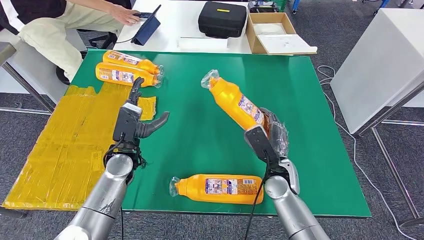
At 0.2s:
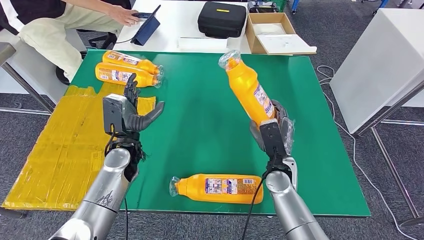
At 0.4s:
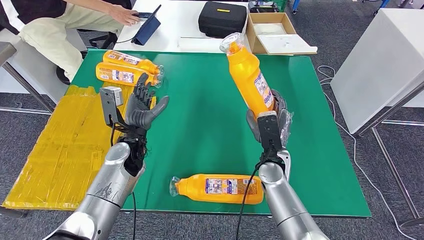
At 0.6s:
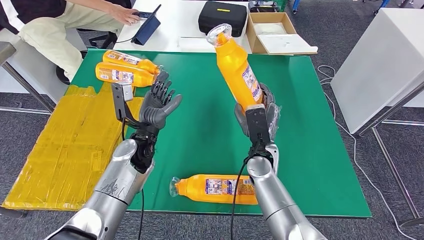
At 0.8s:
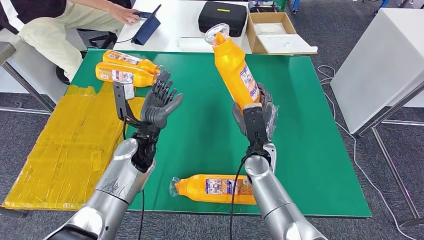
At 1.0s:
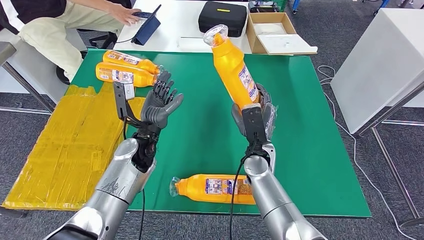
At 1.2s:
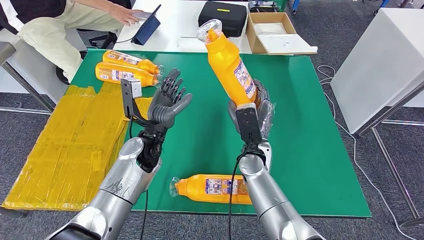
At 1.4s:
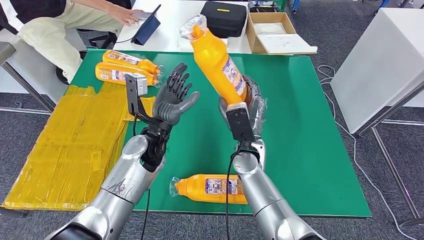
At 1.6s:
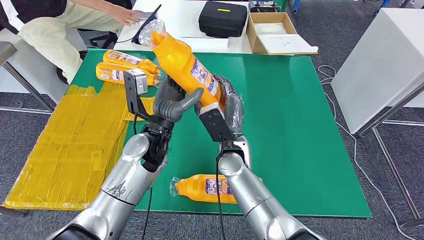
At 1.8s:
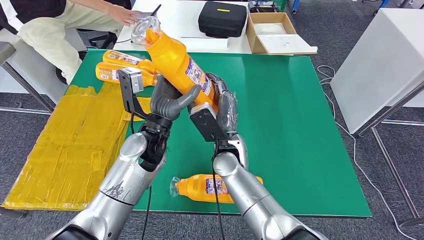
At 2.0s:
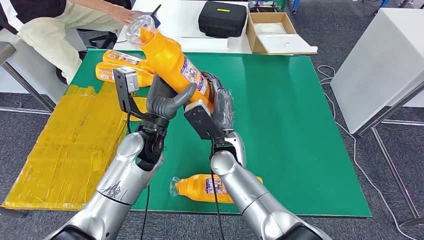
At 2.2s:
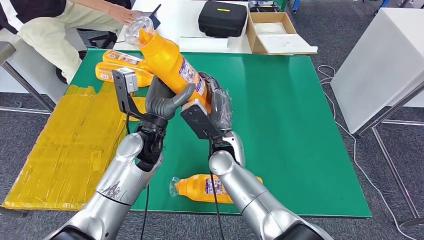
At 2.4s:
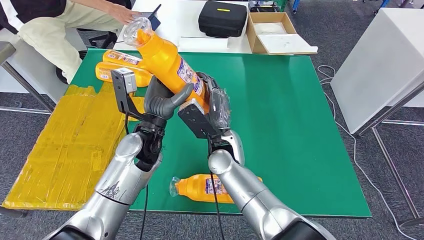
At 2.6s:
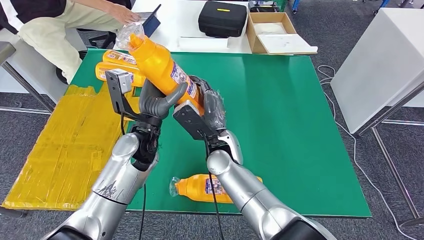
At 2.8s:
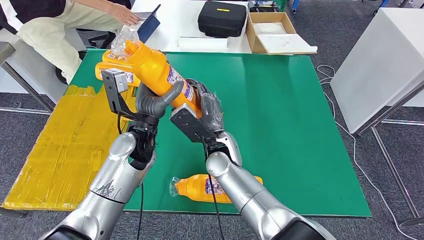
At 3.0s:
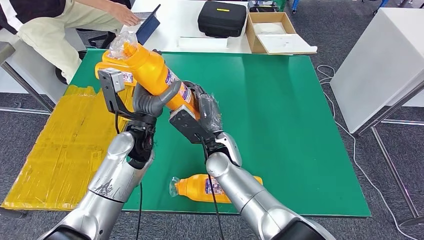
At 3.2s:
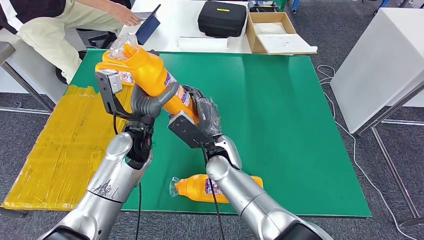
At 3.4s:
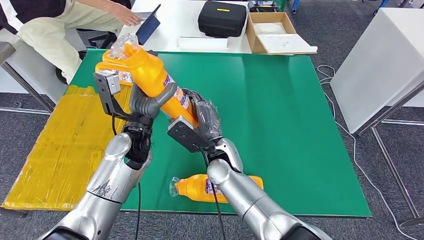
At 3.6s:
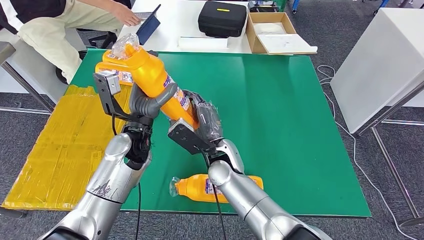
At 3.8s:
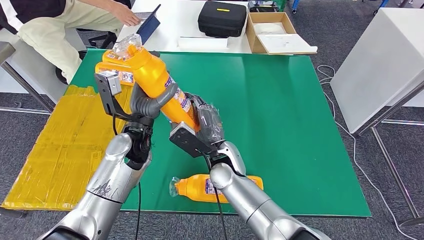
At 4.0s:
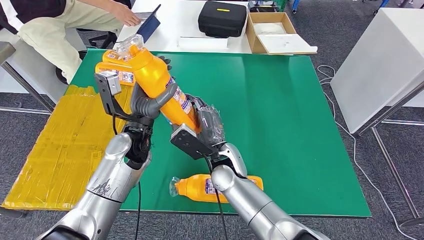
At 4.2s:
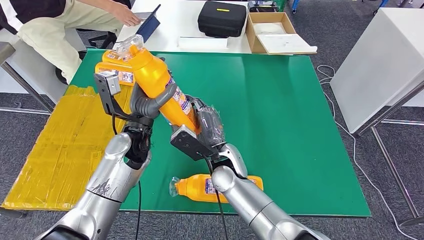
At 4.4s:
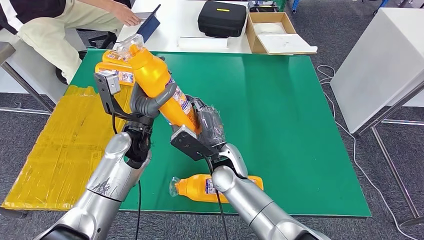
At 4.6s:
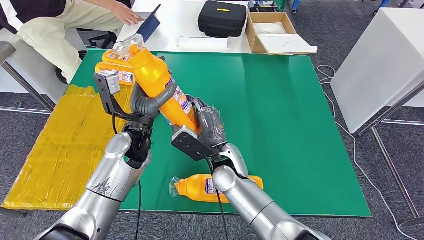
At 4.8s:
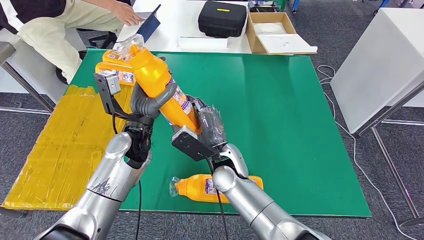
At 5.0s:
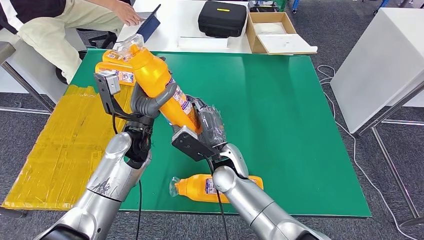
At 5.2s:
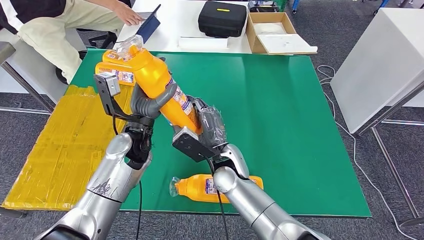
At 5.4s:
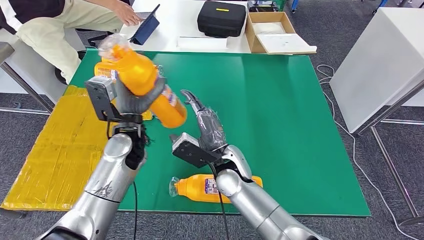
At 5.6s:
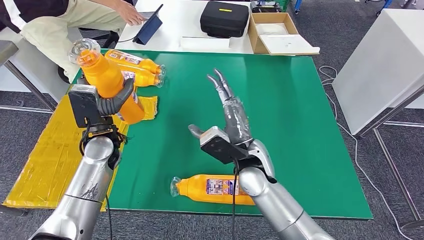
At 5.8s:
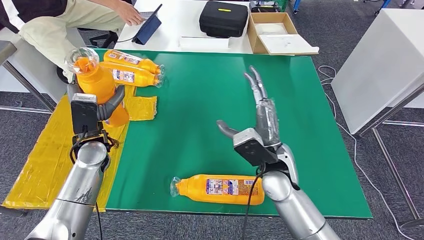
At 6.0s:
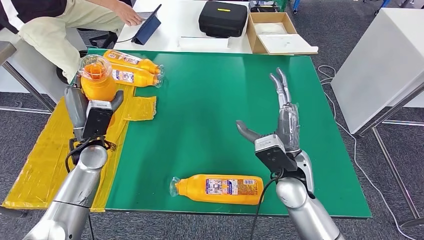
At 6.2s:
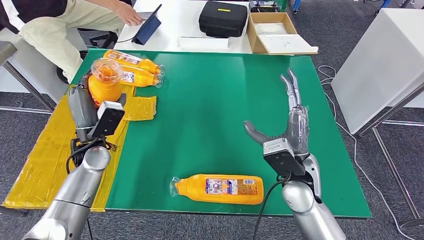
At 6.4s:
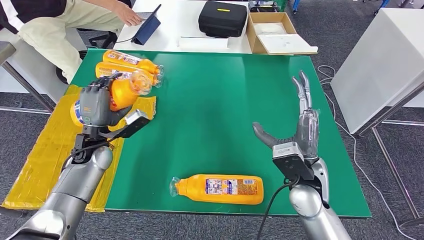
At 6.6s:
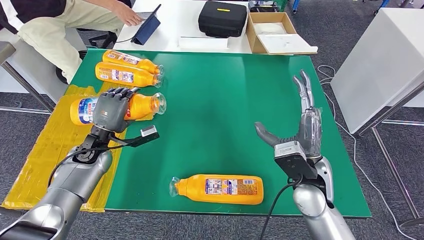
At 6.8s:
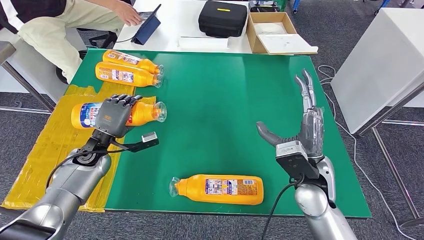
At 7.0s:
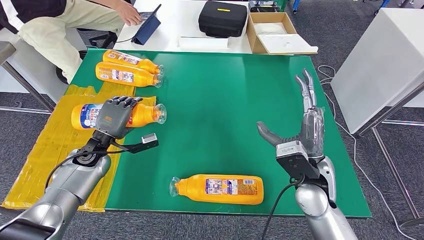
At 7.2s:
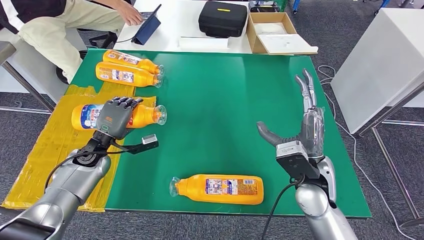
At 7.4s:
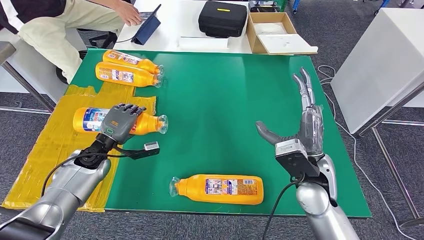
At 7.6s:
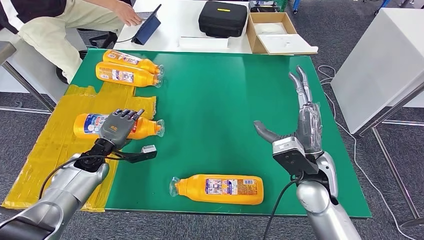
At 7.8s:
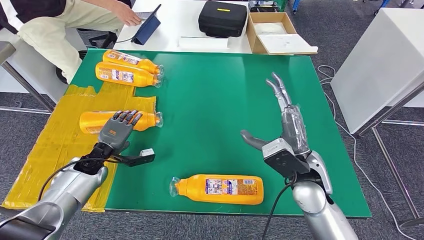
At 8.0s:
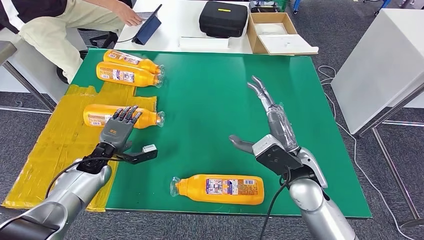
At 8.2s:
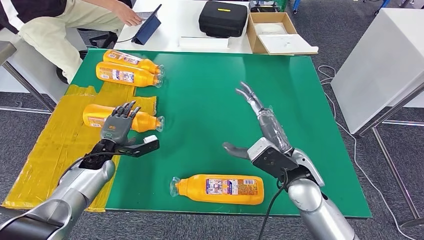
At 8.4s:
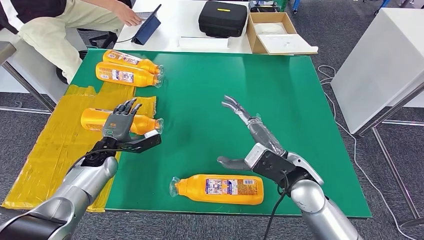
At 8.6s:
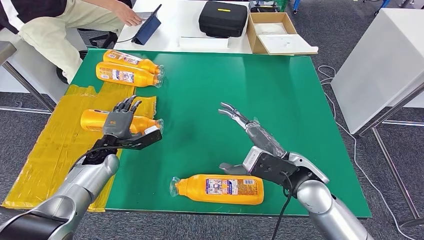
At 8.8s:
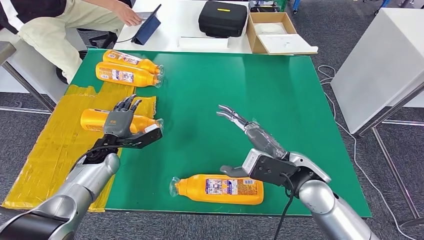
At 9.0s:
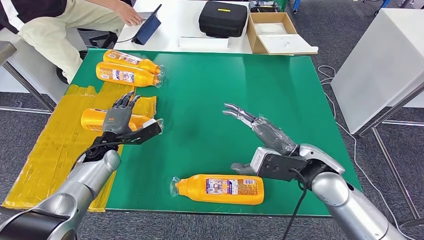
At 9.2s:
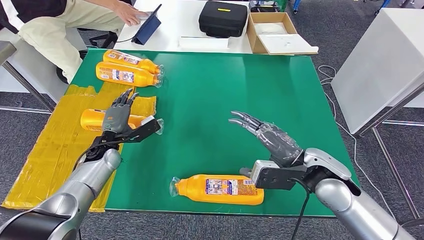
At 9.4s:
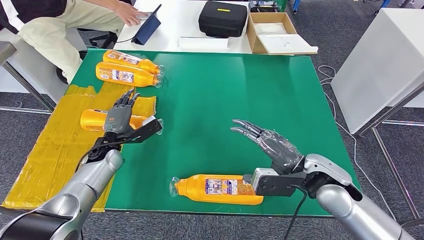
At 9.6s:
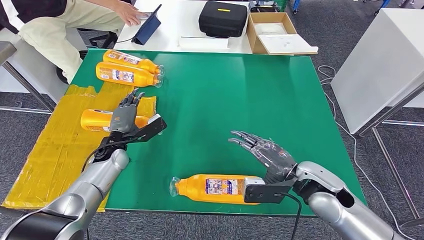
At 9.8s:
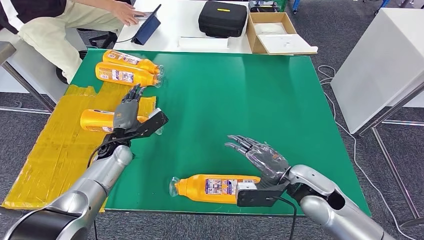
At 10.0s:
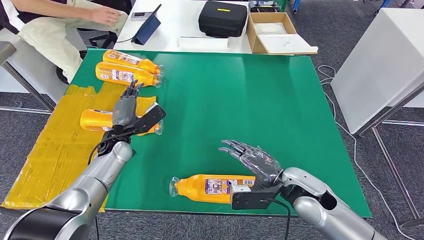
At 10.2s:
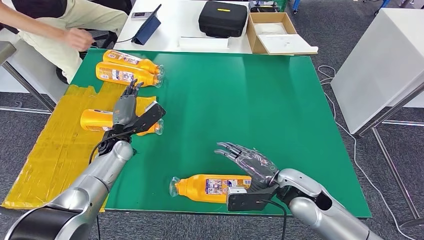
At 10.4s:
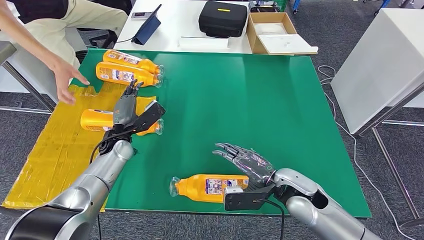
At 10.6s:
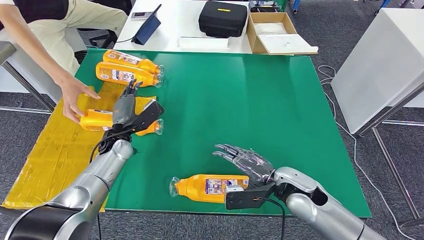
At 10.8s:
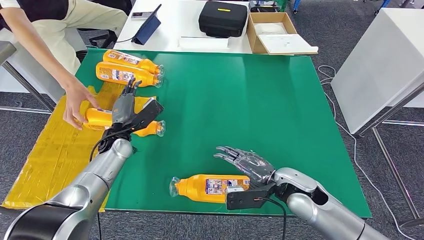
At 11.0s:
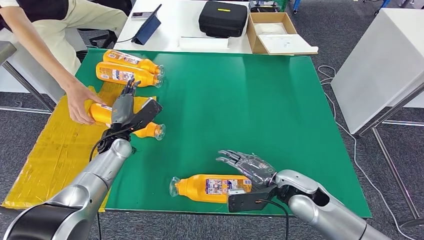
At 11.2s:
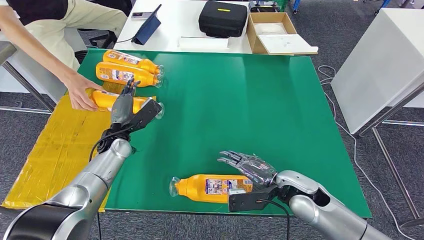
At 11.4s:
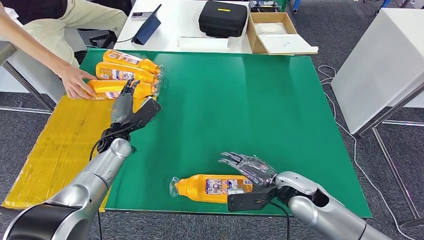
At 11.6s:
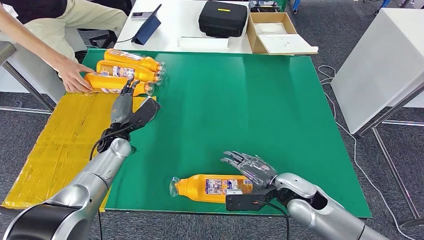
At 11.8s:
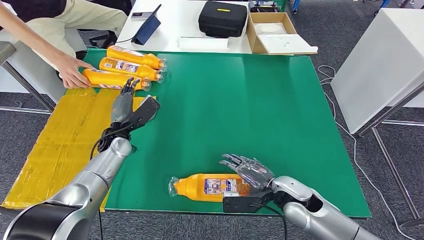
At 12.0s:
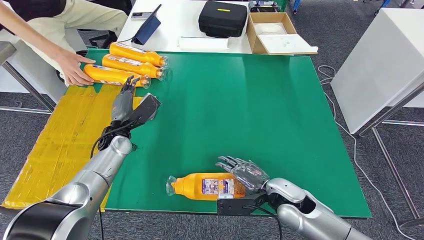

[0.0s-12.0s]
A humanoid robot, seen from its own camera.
Step, 0.0s to 4.8s: Pick up the bottle from the table.
Step, 5.0s to 10.2s: Flip the bottle to face forward.
3.0s to 4.4s: The hands make only small movements.
6.0s to 7.6s: The left hand travels downward by roughly 10 cm.
9.0s to 10.4s: The right hand is displaced downward by some 10 cm, while the left hand shifts by roughly 5 cm.
10.4s to 12.0s: The hands make only small movements.

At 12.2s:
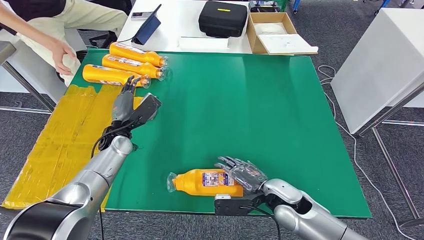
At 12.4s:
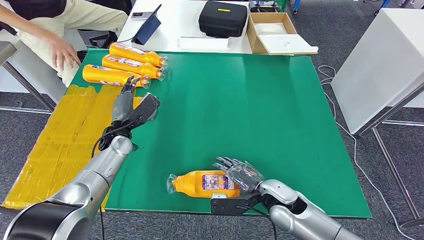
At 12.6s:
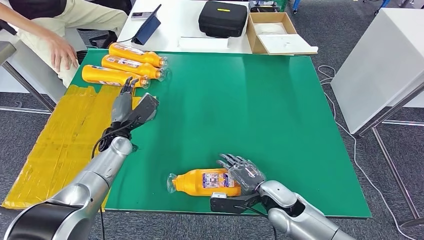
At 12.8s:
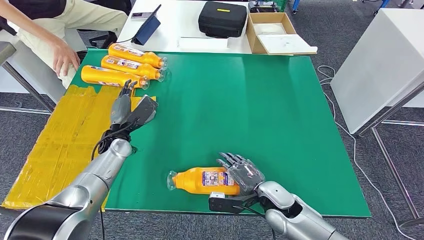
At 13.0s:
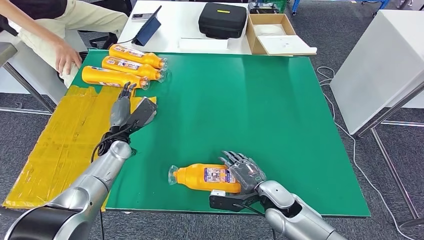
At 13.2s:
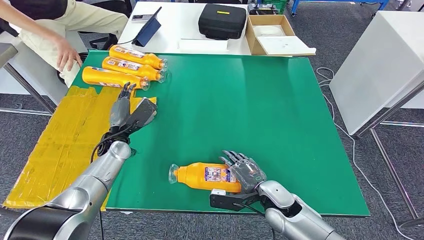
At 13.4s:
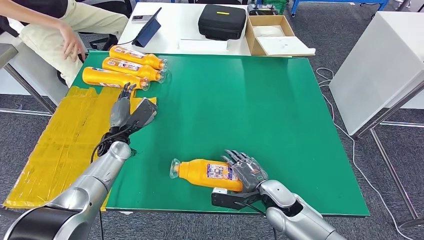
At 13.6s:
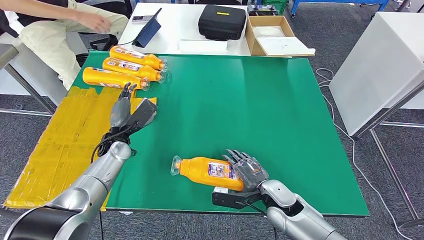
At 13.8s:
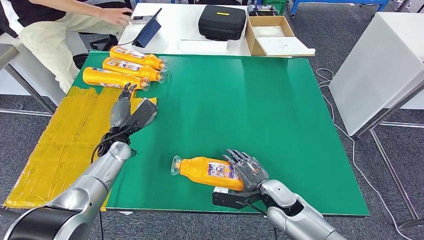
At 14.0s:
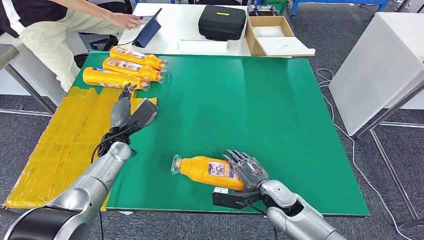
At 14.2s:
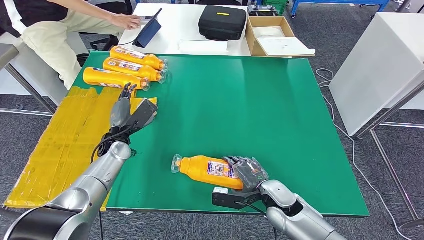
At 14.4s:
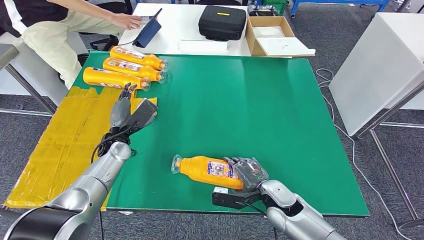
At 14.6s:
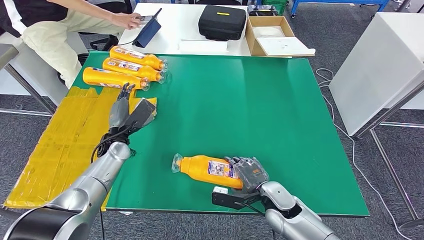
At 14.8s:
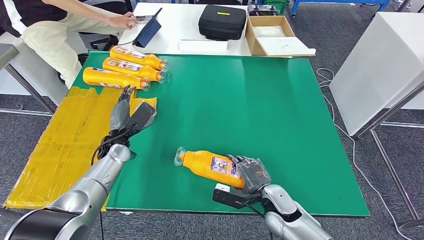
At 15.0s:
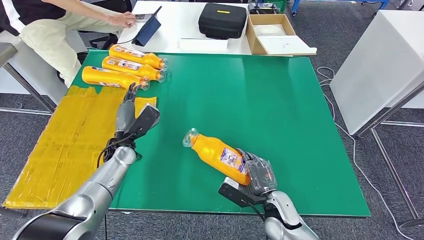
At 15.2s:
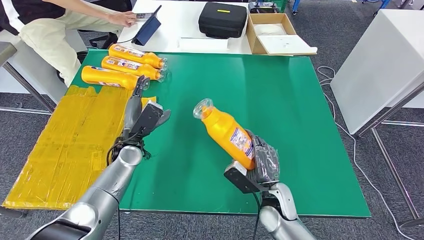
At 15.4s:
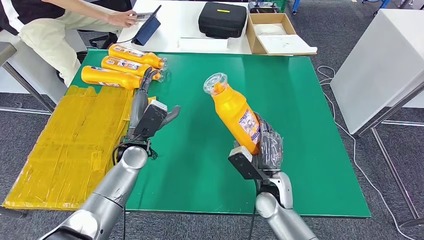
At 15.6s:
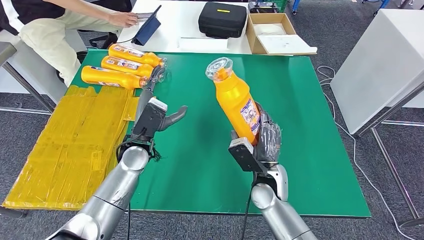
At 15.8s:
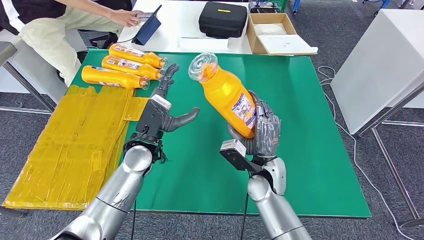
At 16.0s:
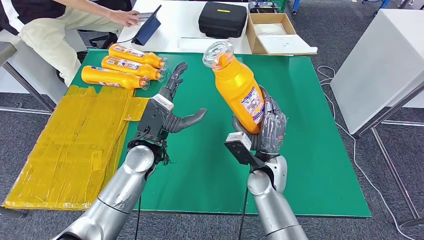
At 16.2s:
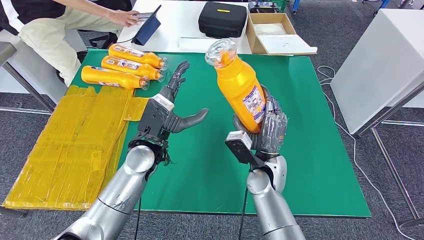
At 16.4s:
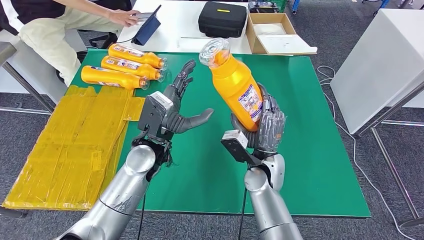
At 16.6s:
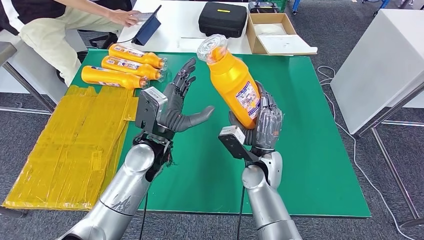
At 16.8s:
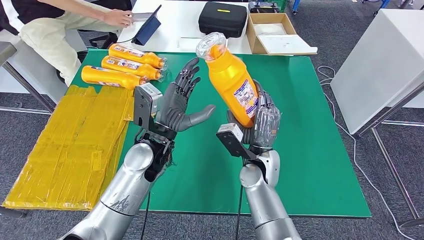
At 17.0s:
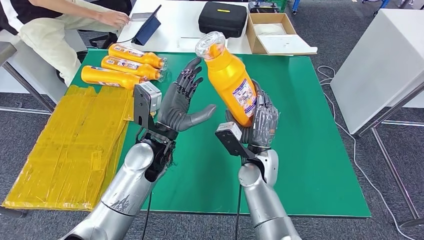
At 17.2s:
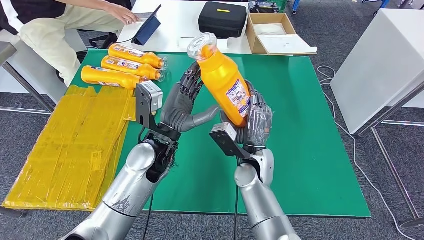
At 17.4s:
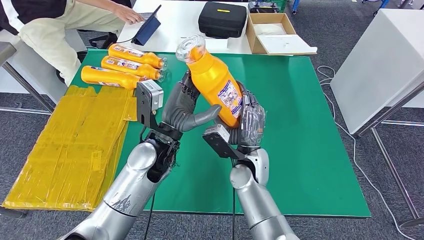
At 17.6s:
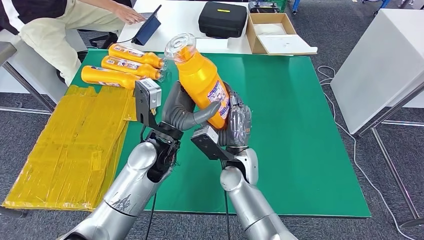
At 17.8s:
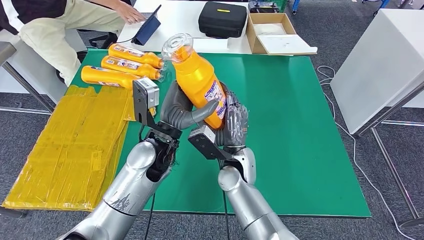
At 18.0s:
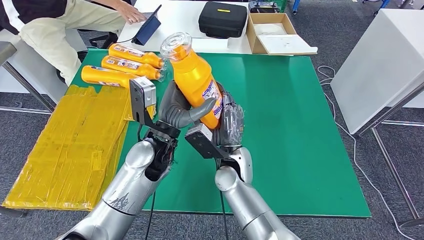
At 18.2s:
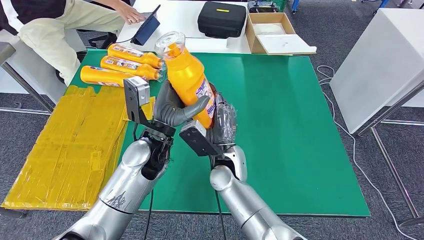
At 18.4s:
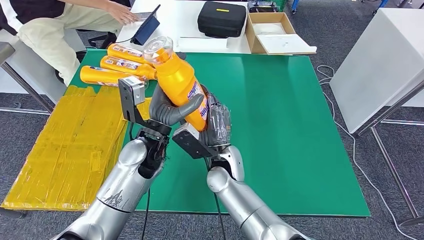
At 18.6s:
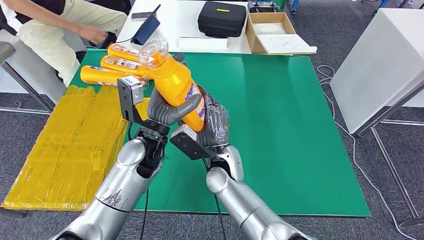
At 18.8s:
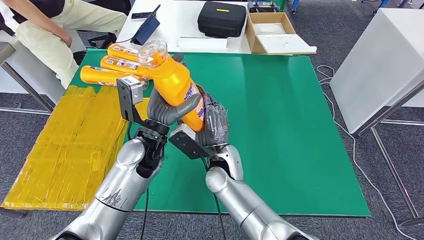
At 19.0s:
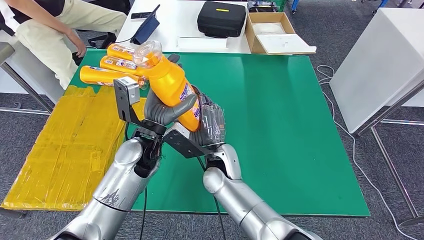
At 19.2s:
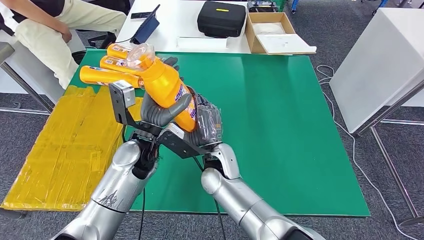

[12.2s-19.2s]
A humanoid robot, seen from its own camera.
Step, 12.2s to 16.0s: Pick up the bottle from the table.
16.4s to 17.8s: The right hand is displaced to the left by some 5 cm.
